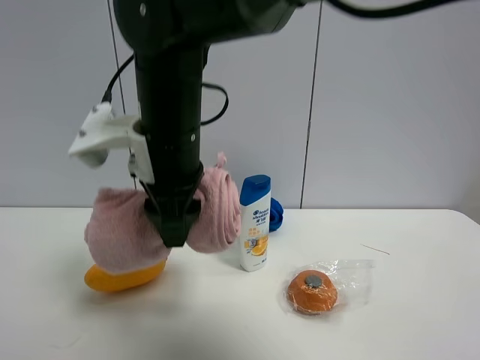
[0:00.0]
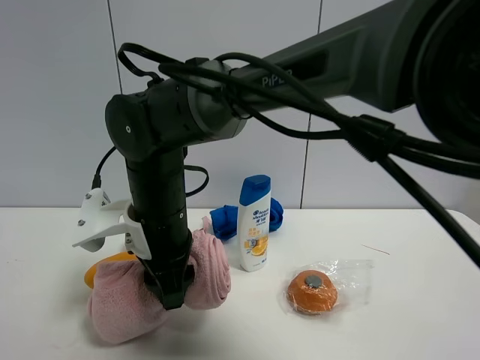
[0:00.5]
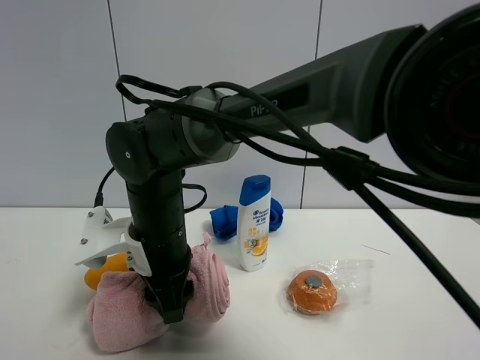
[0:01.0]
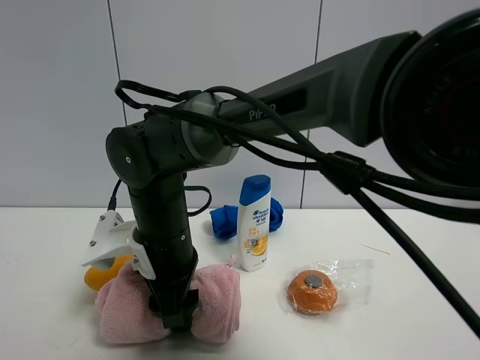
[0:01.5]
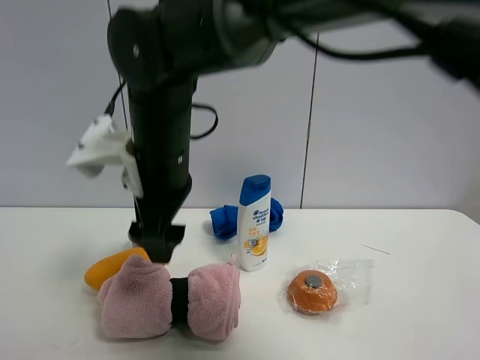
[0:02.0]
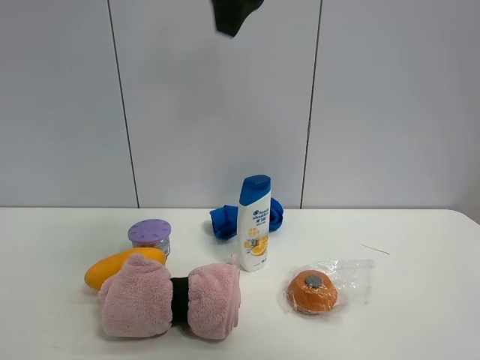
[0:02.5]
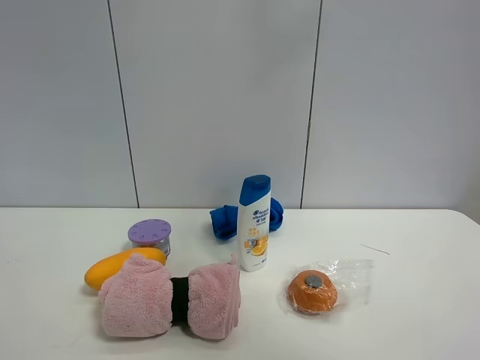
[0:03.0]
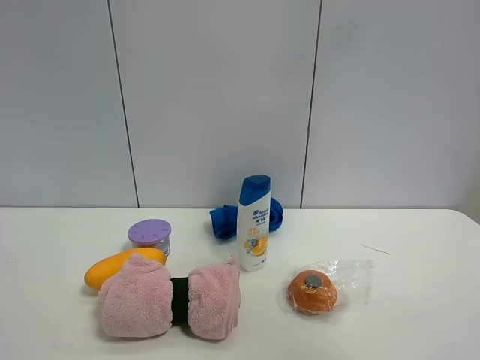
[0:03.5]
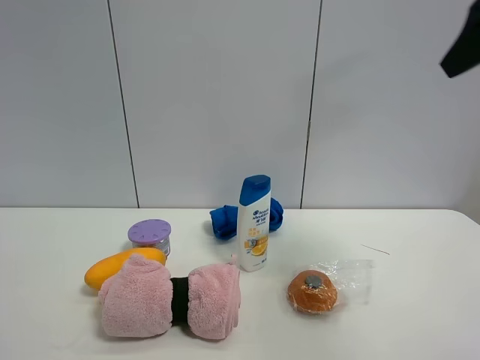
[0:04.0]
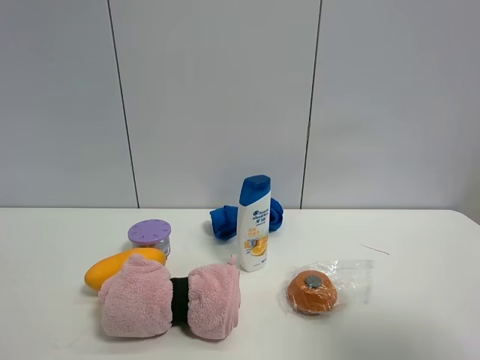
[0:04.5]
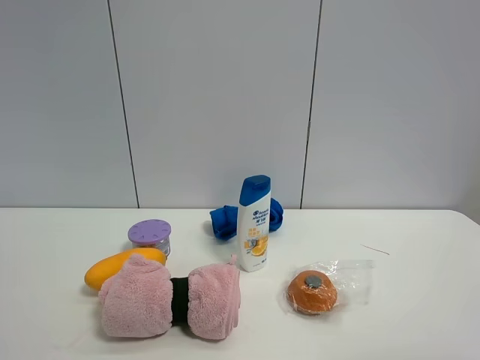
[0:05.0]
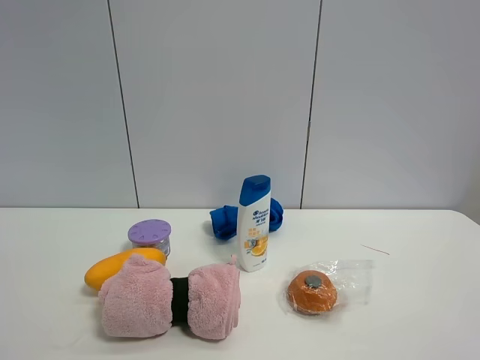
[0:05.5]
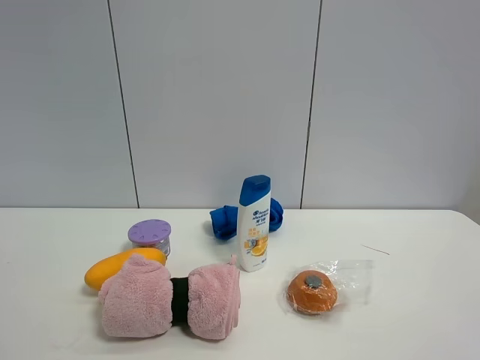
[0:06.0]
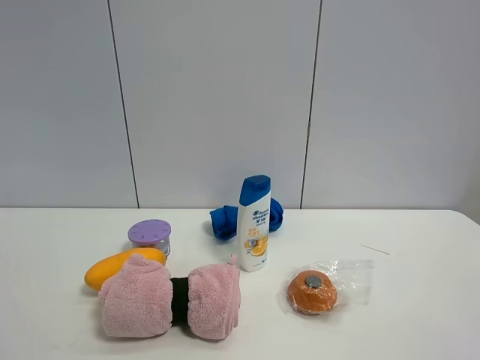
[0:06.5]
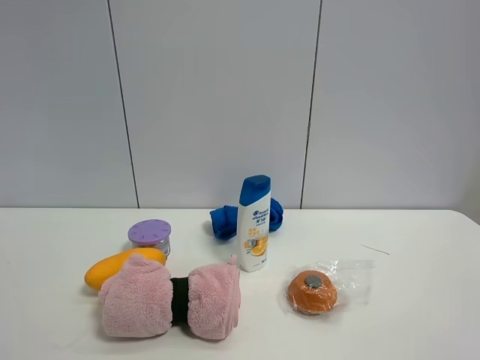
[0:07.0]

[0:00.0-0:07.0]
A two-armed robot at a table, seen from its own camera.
Task of the whole recording: the gripper move the object.
0:00.0 to 0:02.0: The right gripper moves approximately 10 cm downward and comes back, and opens.
0:02.0 to 0:03.5: The right gripper travels to the right and upward by some 40 cm.
0:03.5 to 0:05.0: The right gripper travels backward and downward by roughly 35 cm.

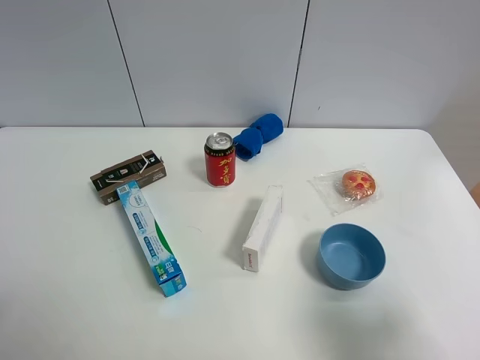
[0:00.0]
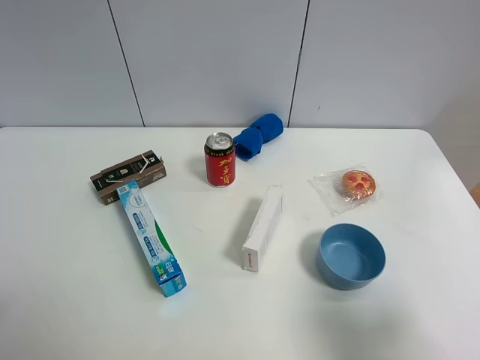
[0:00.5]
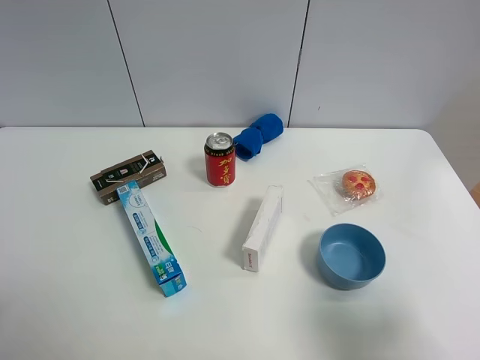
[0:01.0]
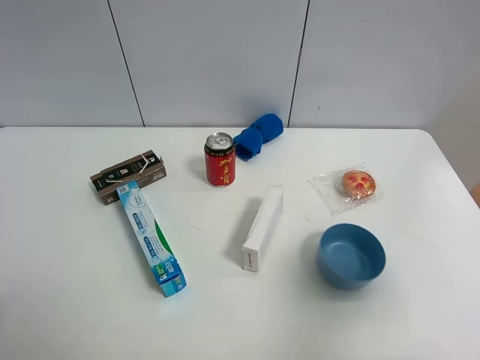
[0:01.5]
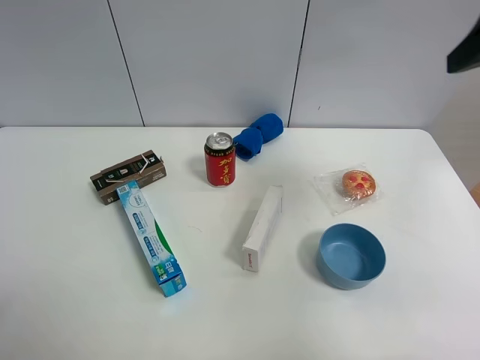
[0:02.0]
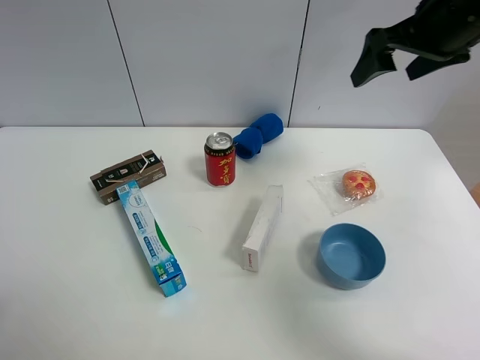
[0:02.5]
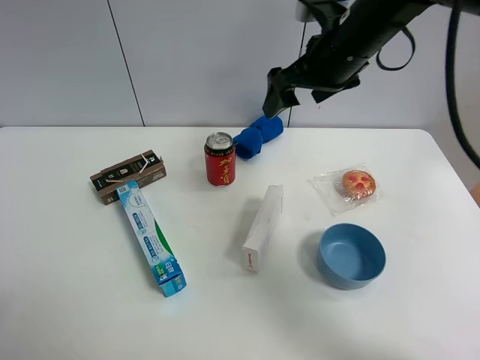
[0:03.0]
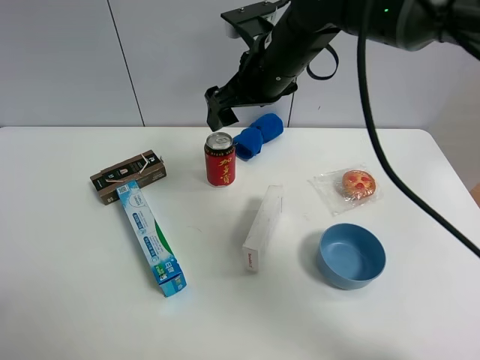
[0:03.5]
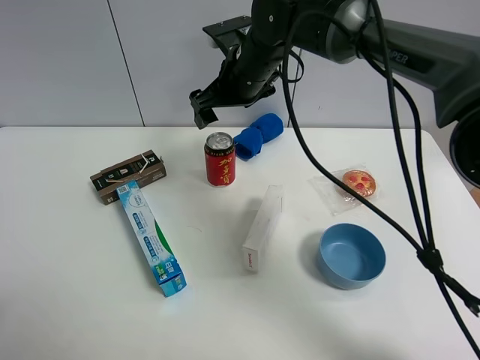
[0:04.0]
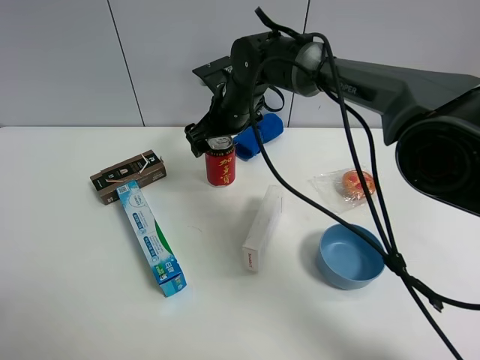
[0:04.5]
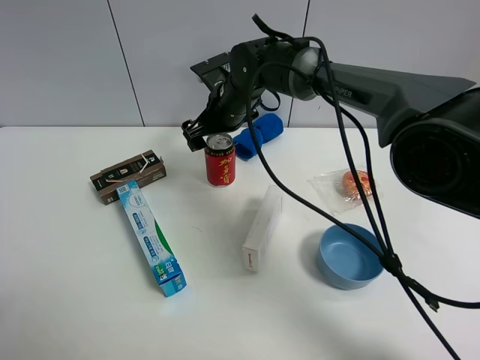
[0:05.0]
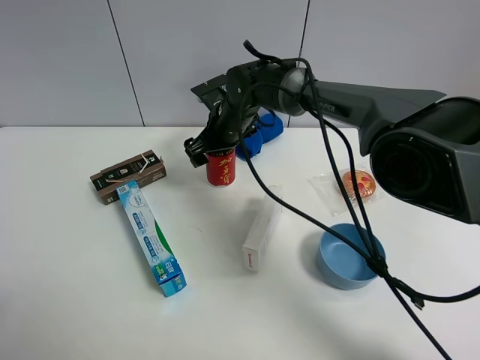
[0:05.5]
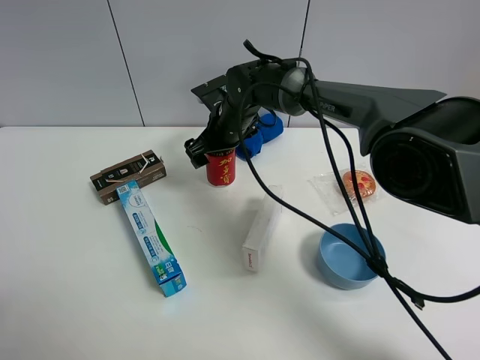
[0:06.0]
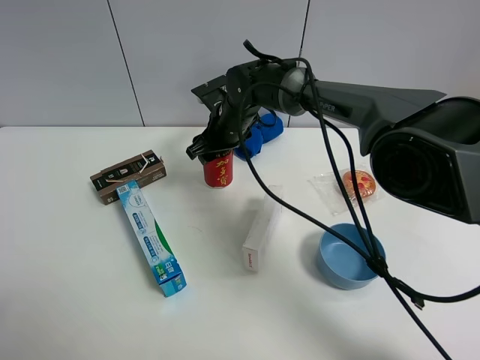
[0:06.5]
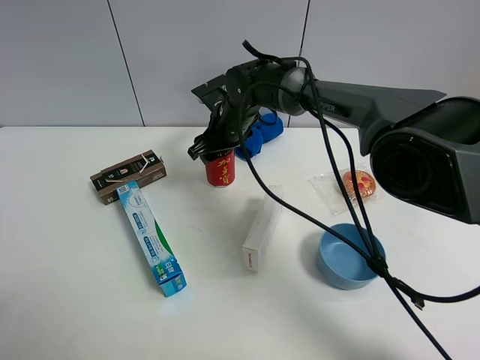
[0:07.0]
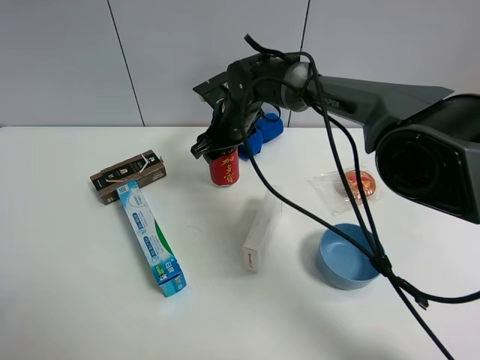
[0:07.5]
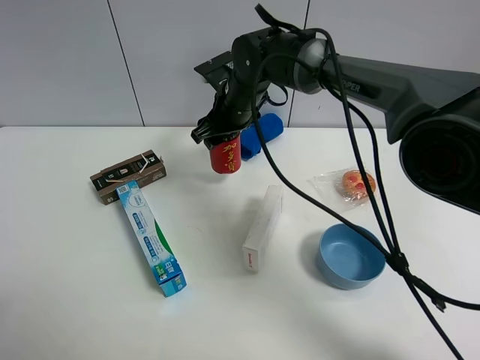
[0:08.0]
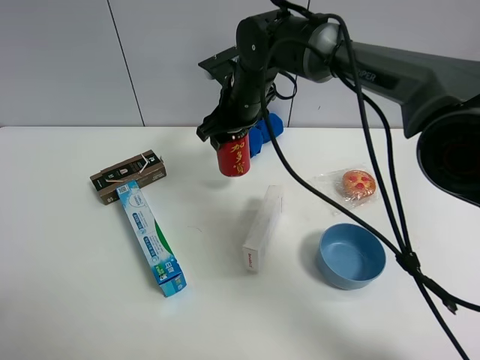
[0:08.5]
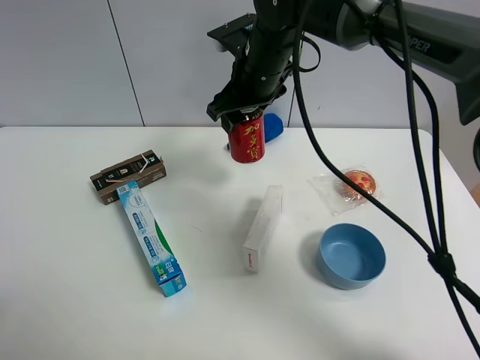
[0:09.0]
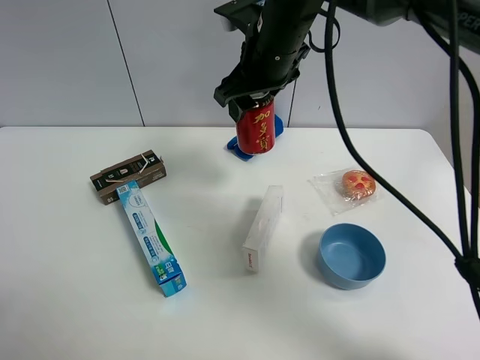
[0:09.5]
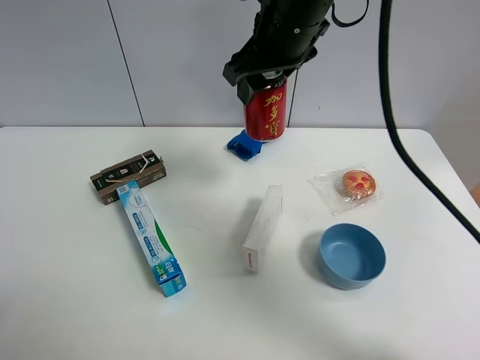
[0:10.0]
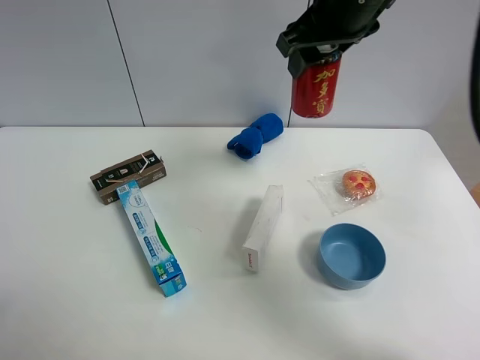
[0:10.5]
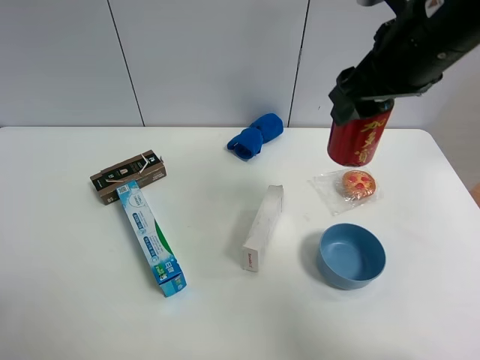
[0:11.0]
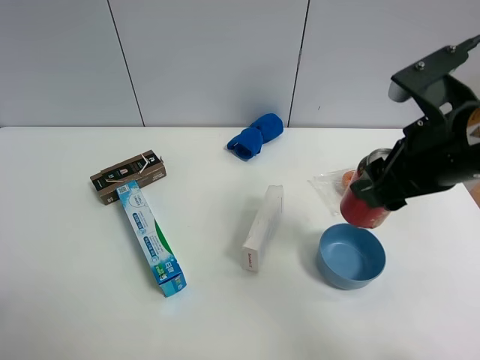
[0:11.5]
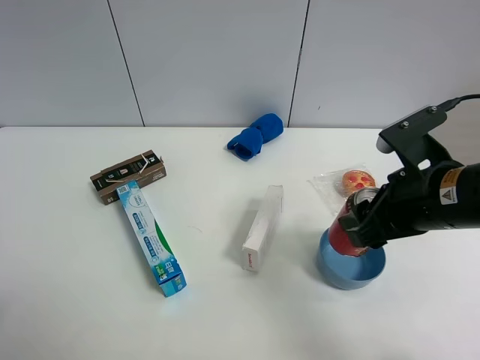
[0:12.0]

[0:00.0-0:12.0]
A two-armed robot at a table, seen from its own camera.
Task of the whole recording: the gripper move the object.
Step, 0:00.0 to 0:06.0: Grasp the Jia Duo Bao with the right gripper.
0:00.0 to 0:02.0: The right gripper moves forward and upward, some 30 cm.
0:02.0 to 0:04.0: The right gripper travels to the left, forward and downward by approximately 35 cm.
0:04.0 to 0:06.0: The right gripper shifts roughly 10 cm downward.
0:06.0 to 0:08.0: The right gripper changes place by some 5 cm, and closes its fingers.
0:08.0 to 0:10.0: The right gripper moves upward and backward, about 15 cm.
0:10.0 to 0:12.0: The right gripper heads backward, to the right and downward, covering about 25 cm.

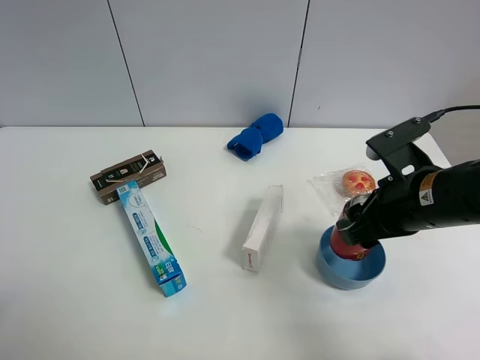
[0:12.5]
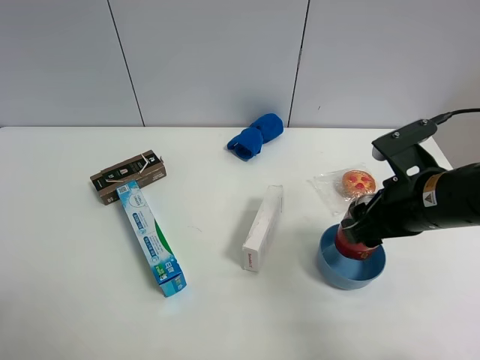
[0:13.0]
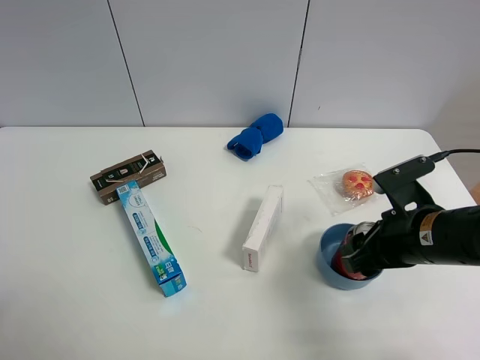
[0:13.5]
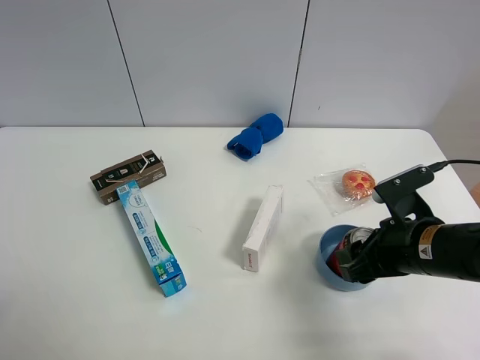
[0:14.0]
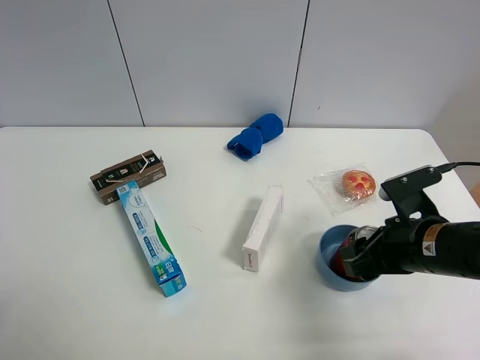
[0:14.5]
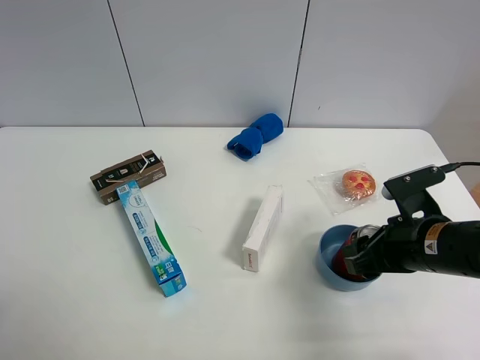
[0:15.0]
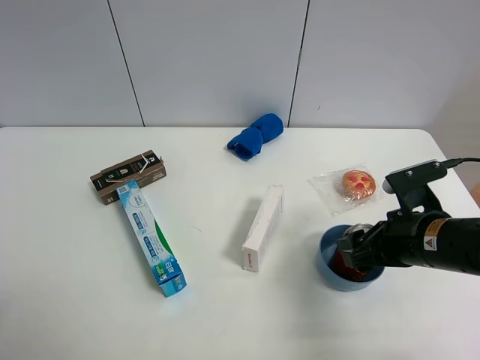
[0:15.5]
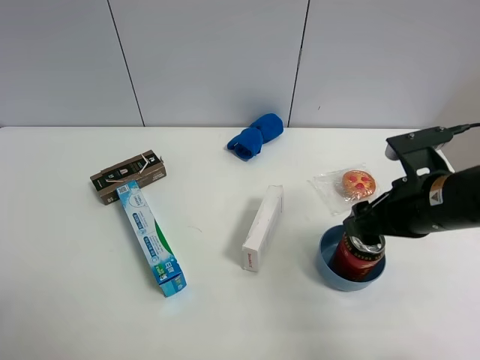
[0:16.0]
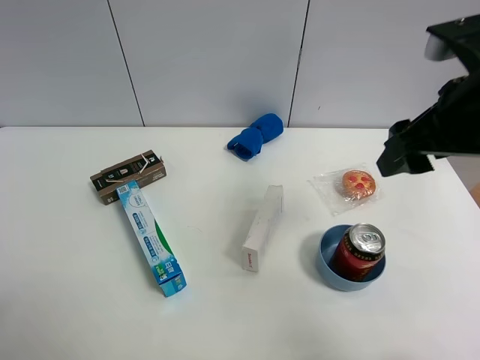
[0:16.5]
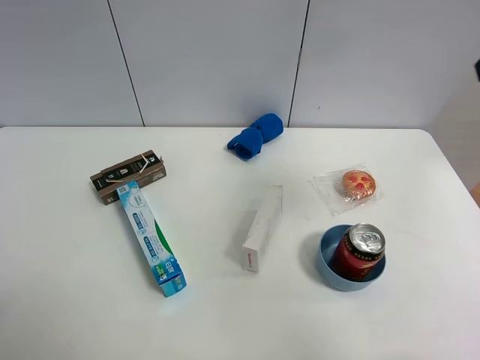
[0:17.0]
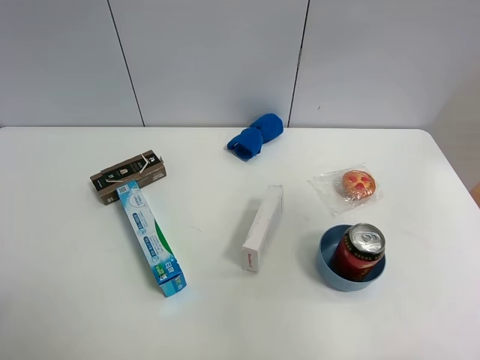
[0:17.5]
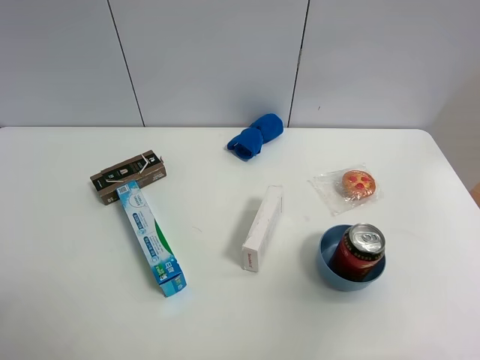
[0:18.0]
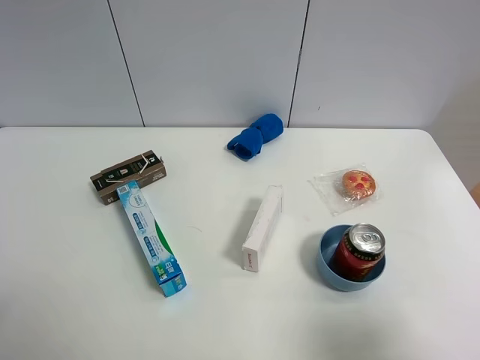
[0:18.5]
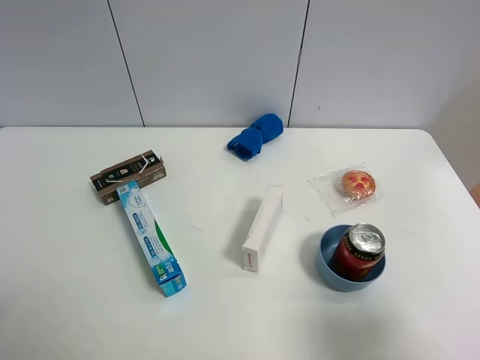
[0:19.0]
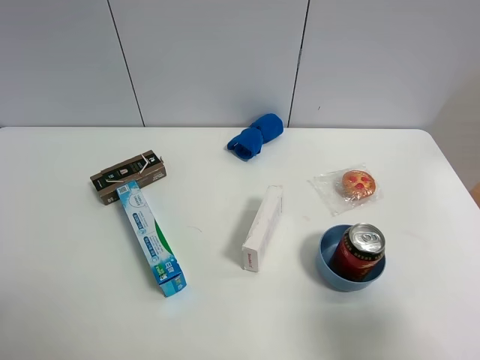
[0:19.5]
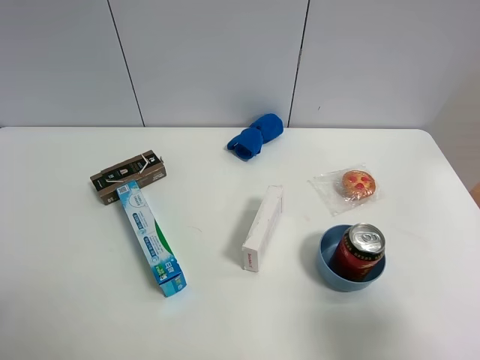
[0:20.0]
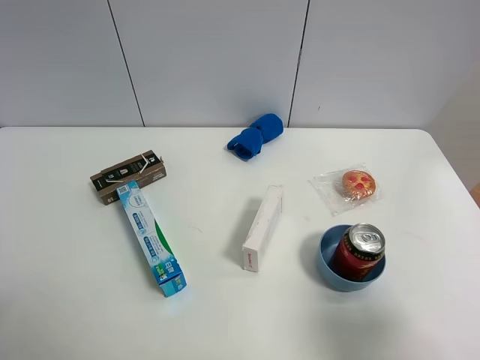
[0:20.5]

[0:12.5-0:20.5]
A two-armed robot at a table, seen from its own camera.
Task of the whole recording: the gripper move the object.
Step, 0:12.5 to 0:15.5: Place the Jia Duo Bao into the blue bowl with the right gripper.
0:12.5 to 0:14.5: The right gripper is displaced downward by about 5 cm.
0:14.5 to 0:16.5: The right gripper travels upward by roughly 20 cm.
0:16.5 to 0:18.5: The right gripper is displaced backward by some 25 cm.
